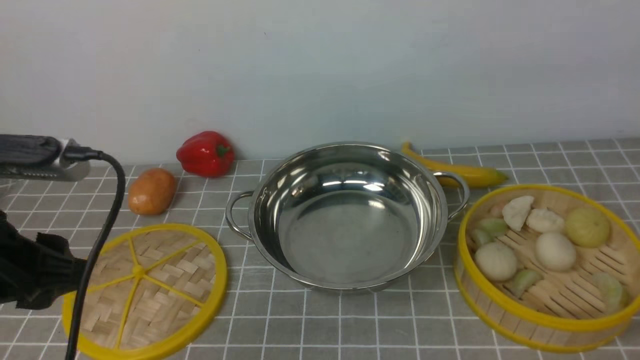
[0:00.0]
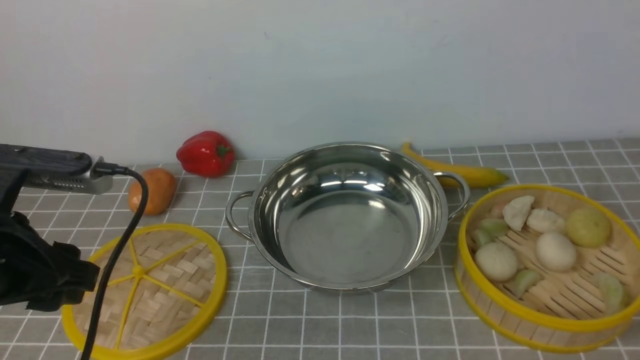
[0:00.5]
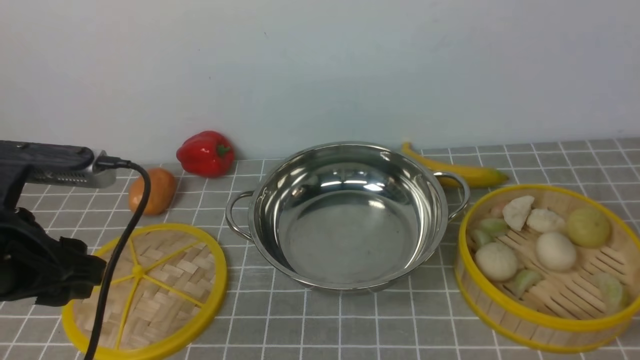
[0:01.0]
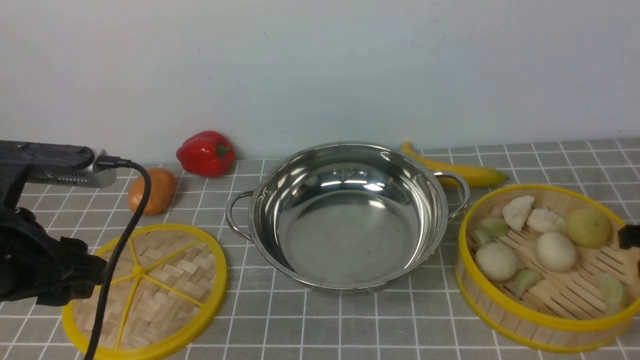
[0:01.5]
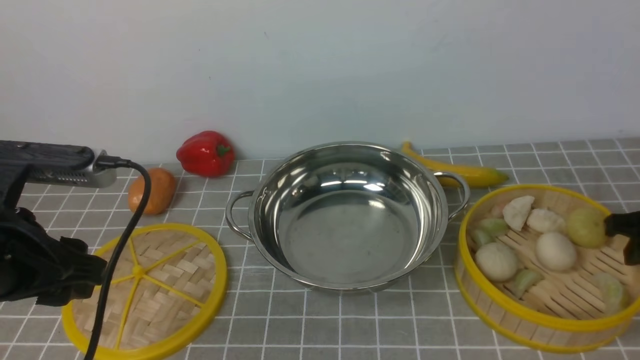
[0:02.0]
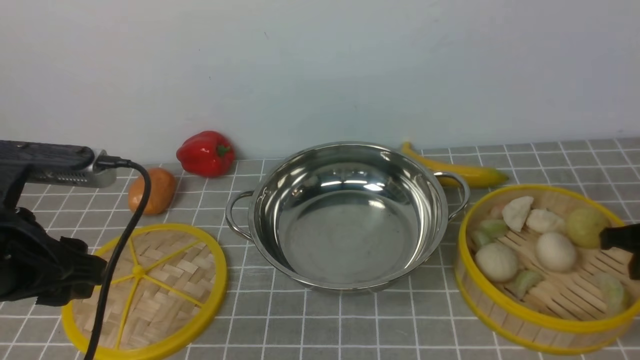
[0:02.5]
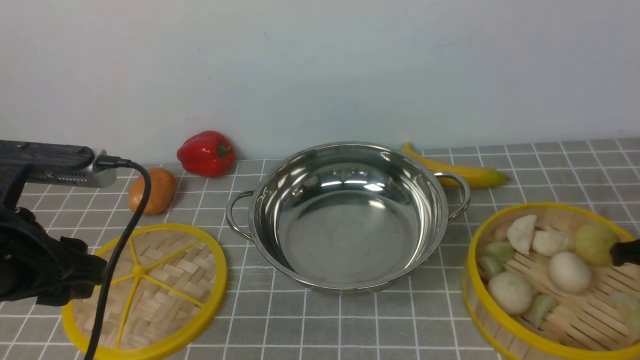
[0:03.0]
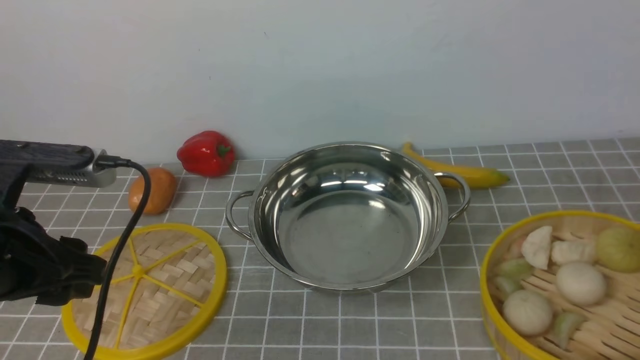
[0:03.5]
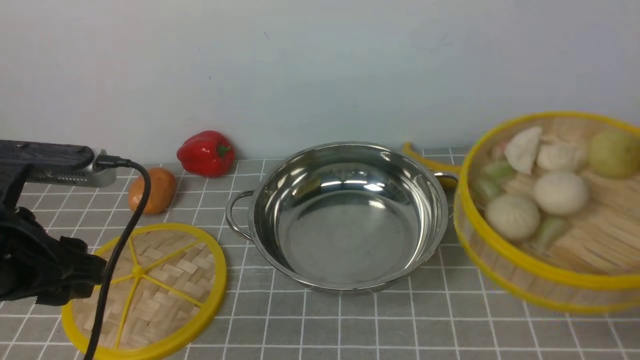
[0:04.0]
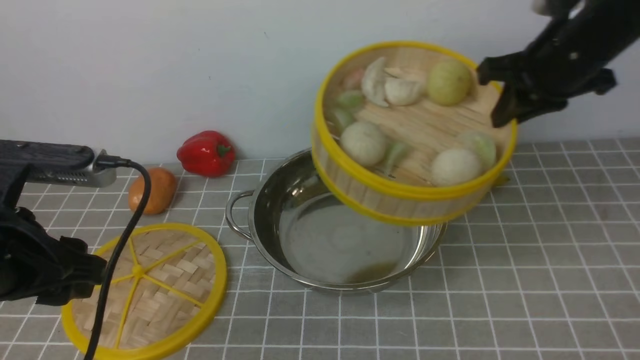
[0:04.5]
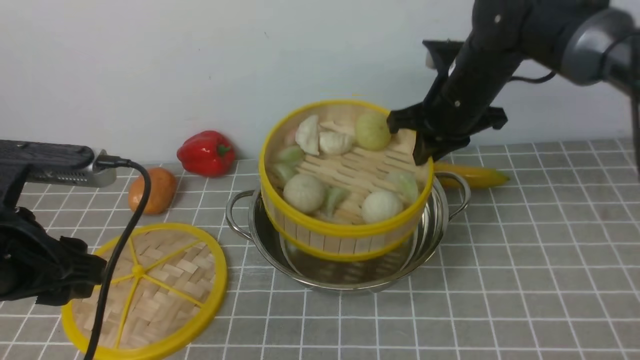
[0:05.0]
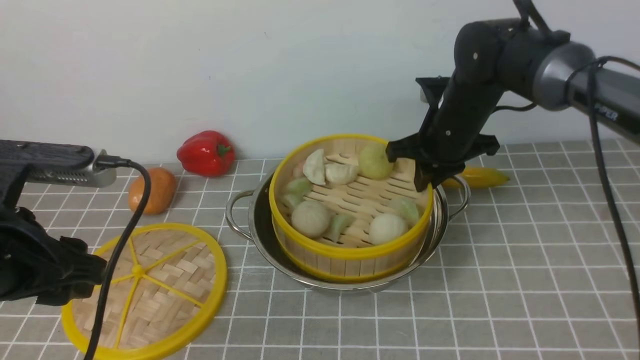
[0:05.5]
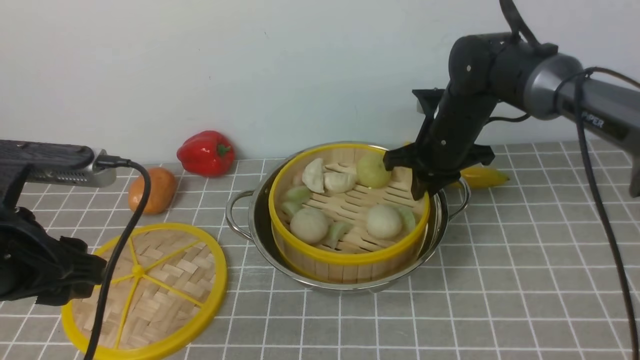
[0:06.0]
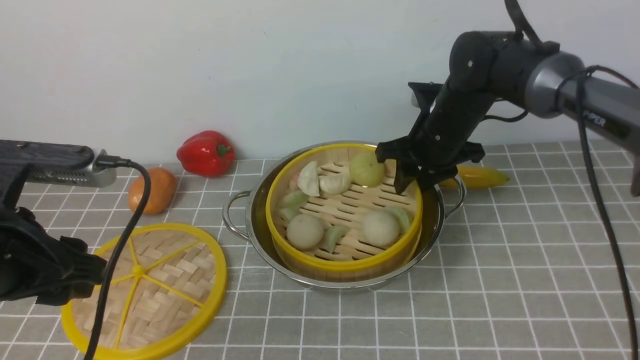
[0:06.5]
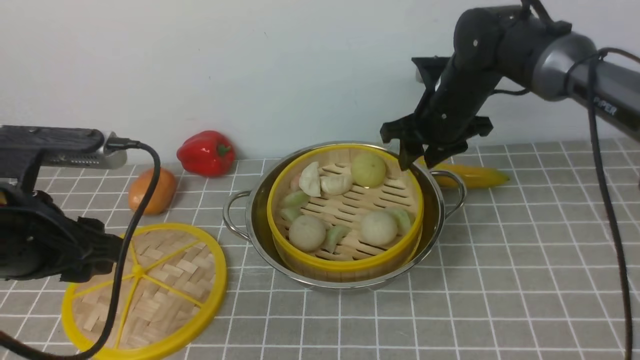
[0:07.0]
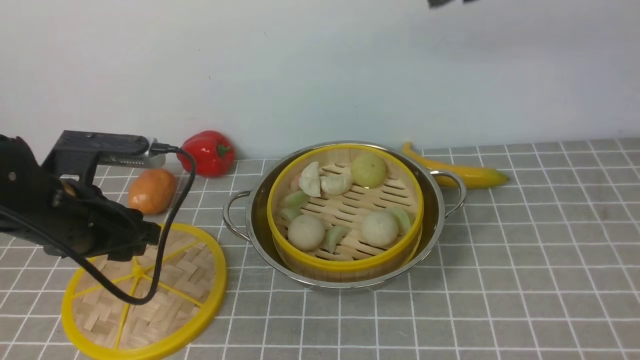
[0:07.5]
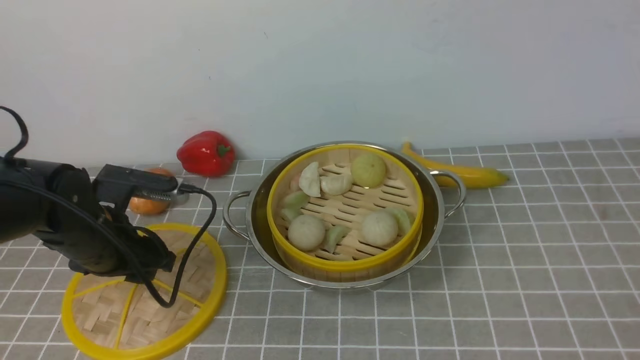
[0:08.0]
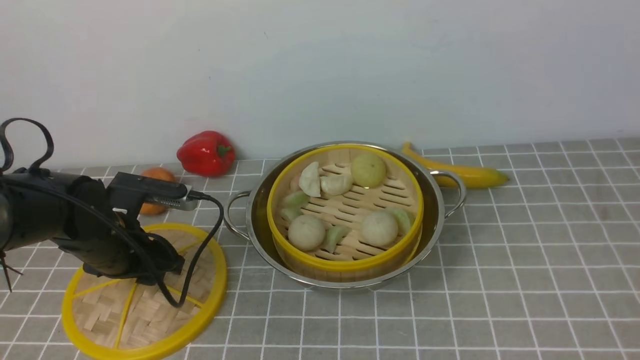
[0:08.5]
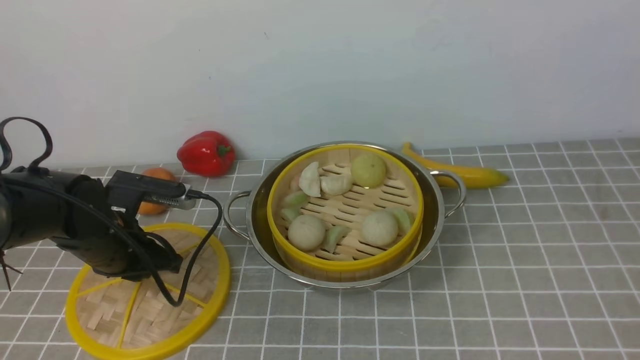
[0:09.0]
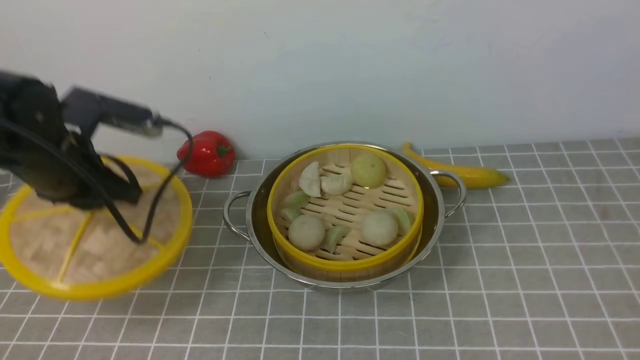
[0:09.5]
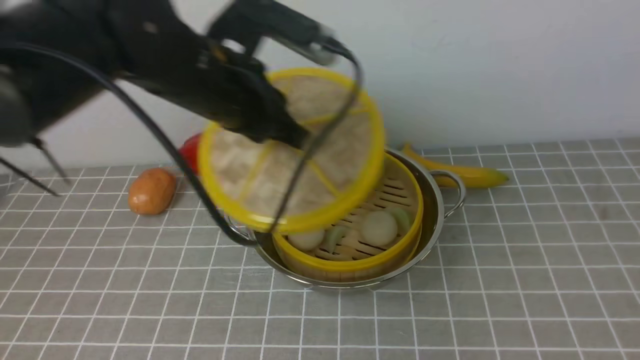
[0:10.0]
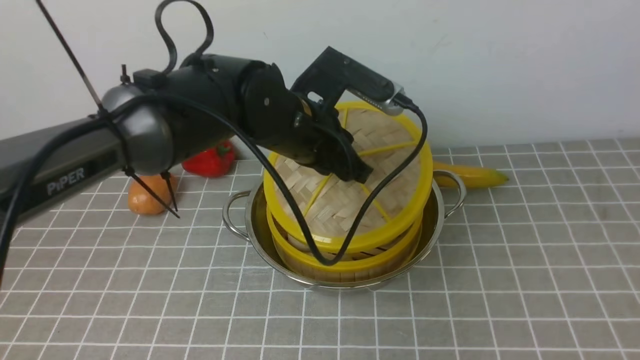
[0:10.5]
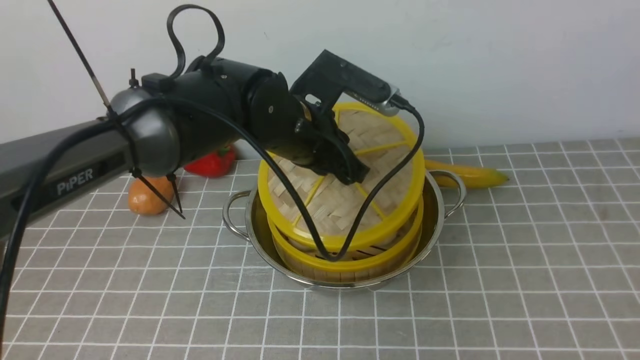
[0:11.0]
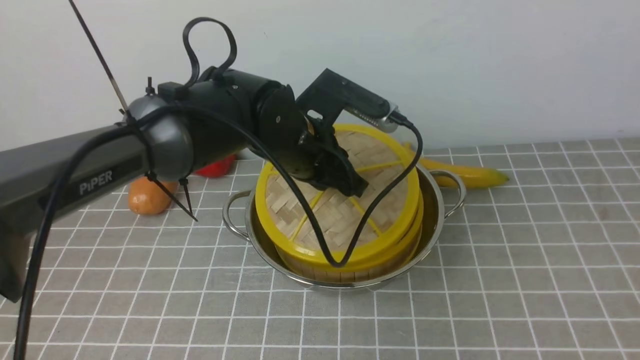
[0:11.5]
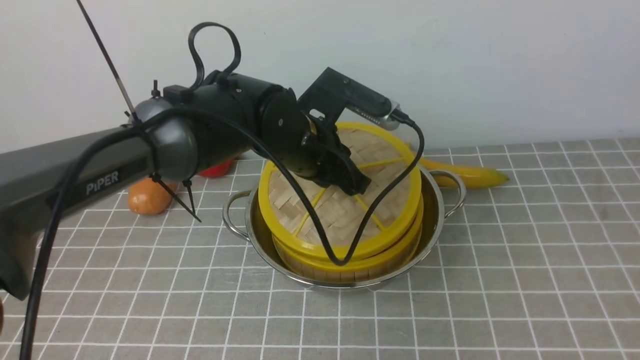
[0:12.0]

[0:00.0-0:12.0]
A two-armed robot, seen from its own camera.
Task of the whole recording: place the steamer in the pot on the grey tablecloth, and put the lid on the steamer.
Step, 0:00.0 to 0:03.5: use the right arm to lift the steamer closest to it.
Step, 0:04.0 to 0:06.5: use the right arm to put the steamer into the iron steamer pot in the middle.
Step, 0:07.0 to 0:09.0: use the left arm to lift the lid of the steamer.
0:00.0 to 0:02.0: The right gripper shifts approximately 25 cm downward and forward.
0:02.0 to 0:04.0: The right gripper moves upward, some 15 cm, and closes up.
0:04.0 to 0:06.0: The right gripper heads to the left, forward and downward, covering some 30 cm.
0:06.0 to 0:08.0: The right gripper heads upward and backward, covering about 50 cm, and opens up; the left gripper goes roughly 15 cm downward and forward.
0:08.0 to 0:10.0: The left gripper travels to the right and upward by roughly 20 cm, and closes its fingers. Meanwhile the right gripper heads backward and to the right, covering some 15 cm.
0:10.0 to 0:12.0: The left gripper travels downward and to the right by roughly 10 cm.

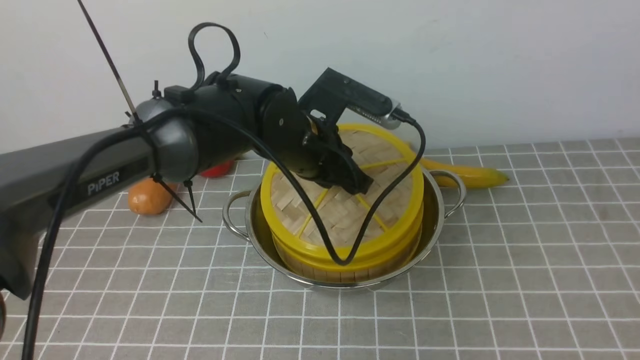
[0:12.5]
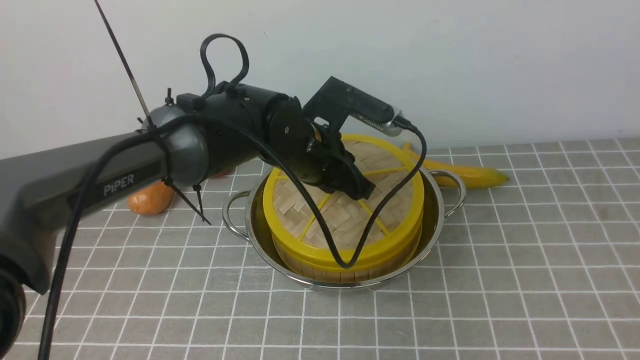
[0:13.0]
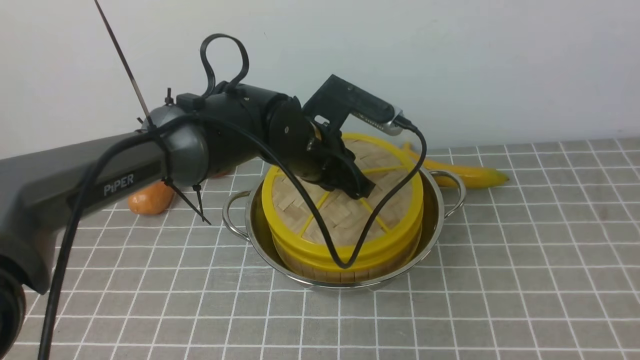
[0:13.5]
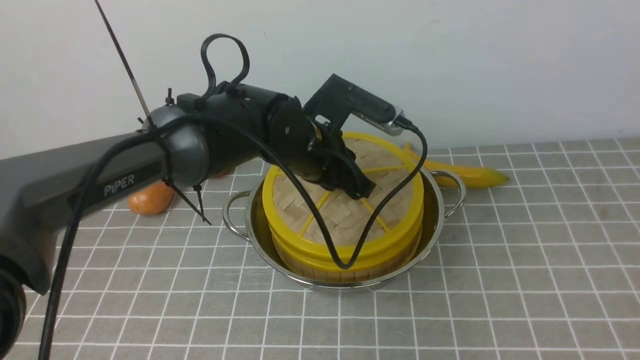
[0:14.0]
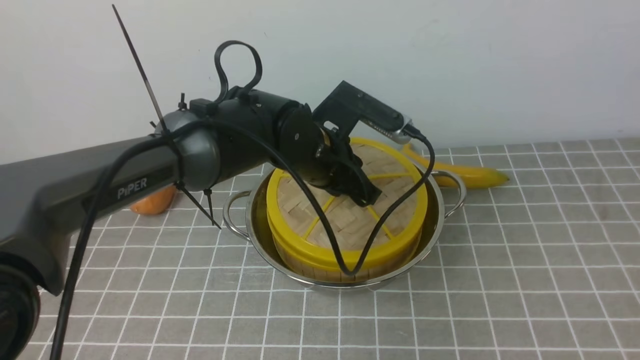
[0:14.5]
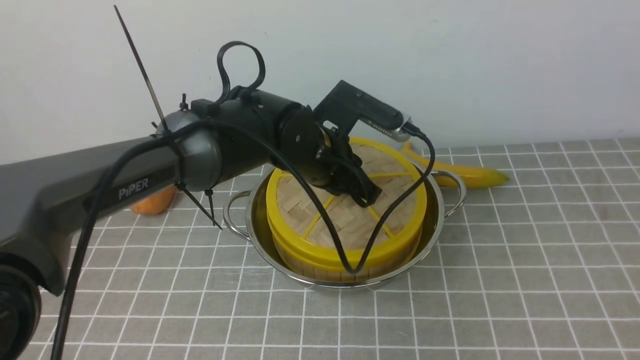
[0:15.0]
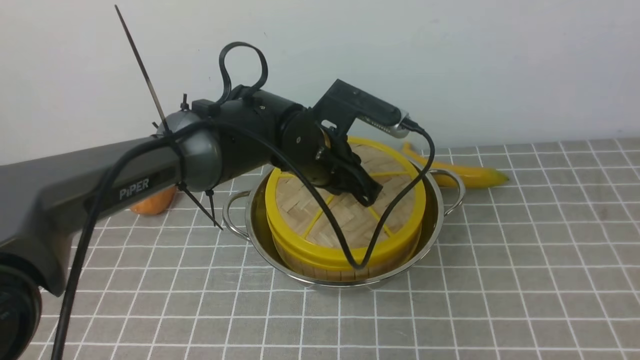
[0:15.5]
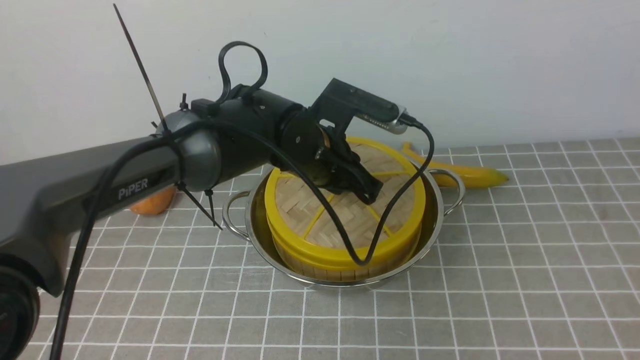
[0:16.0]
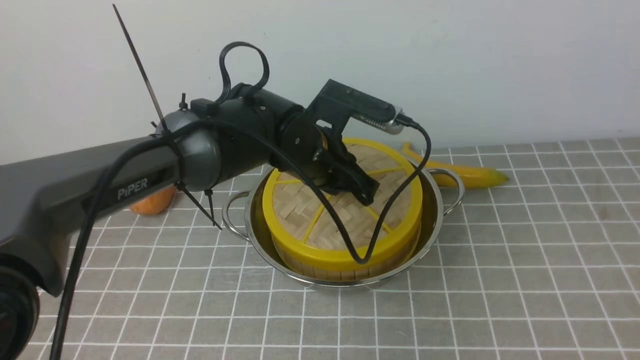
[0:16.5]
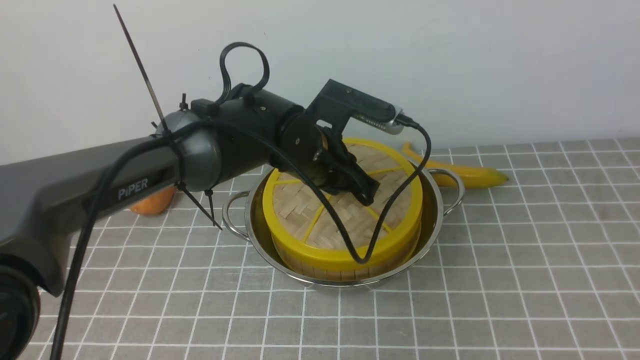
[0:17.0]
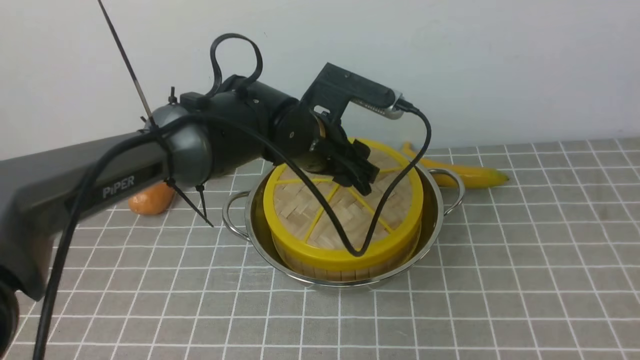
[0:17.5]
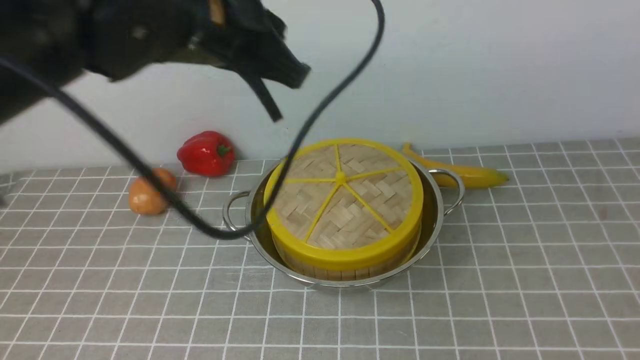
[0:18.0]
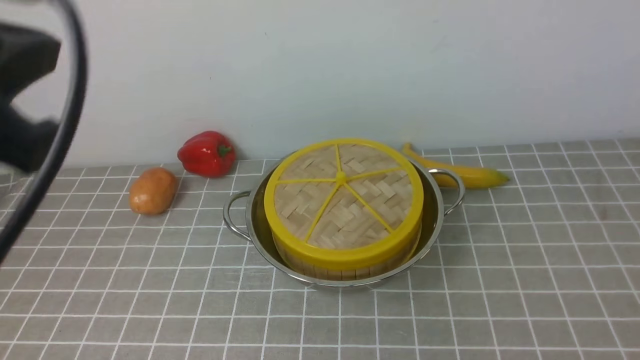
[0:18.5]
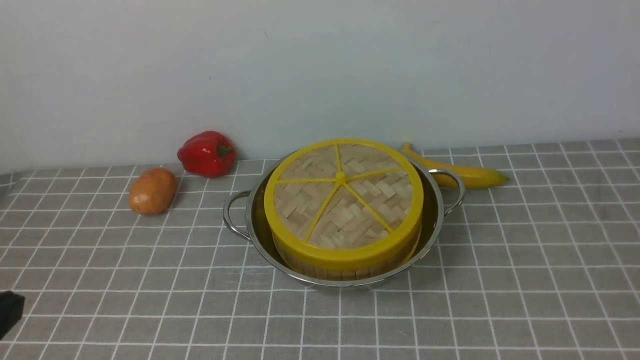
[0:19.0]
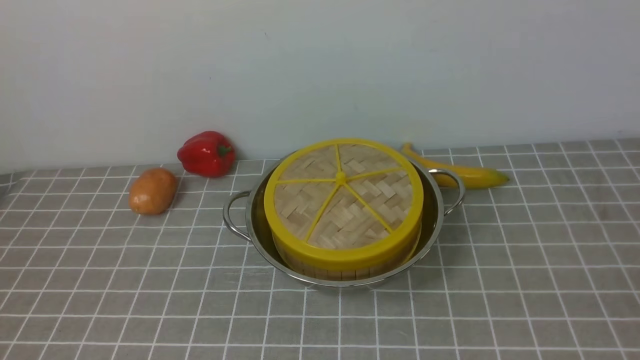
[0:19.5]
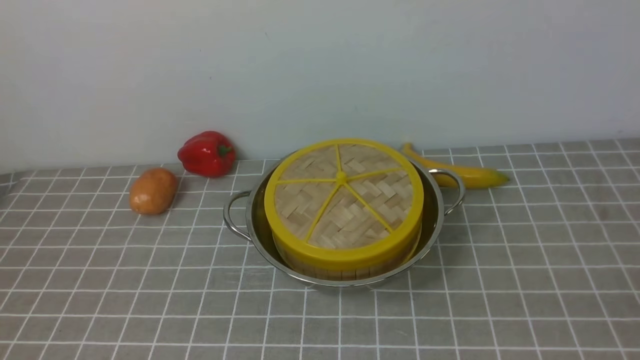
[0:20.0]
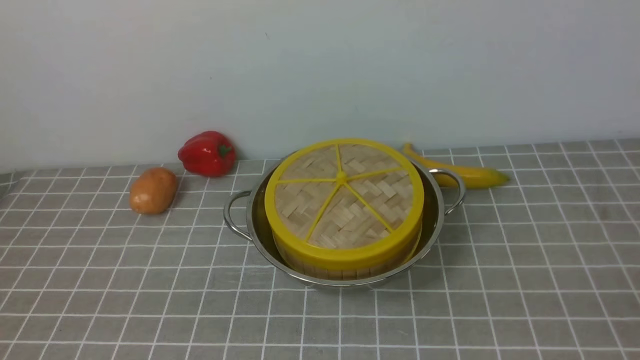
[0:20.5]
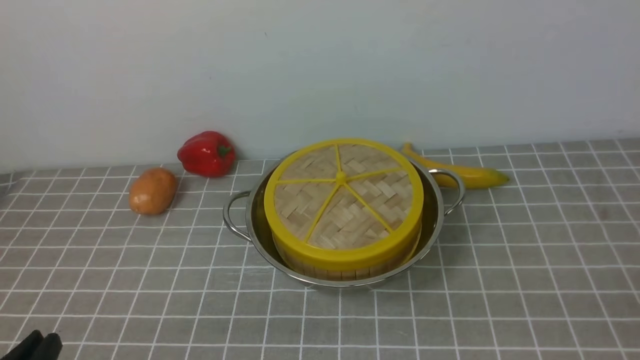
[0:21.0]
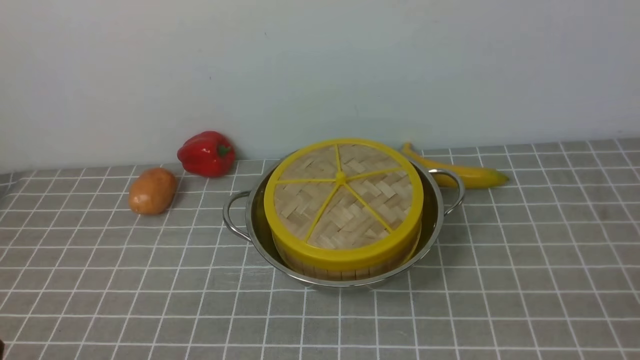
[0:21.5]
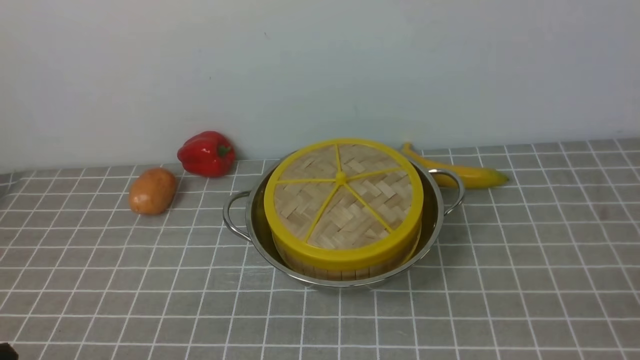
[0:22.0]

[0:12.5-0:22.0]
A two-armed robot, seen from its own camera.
Task of the whole recording: place the steamer in the pot on the grey tablecloth, and put the lid on the steamer.
Step, 0:12.5 to 0:17.5: use the left arm to place the steamer lid on the steamer.
0:12.5 to 0:16.5: The grippers move only a little.
0:16.5 to 0:18.0: The left gripper goes about 20 cm upward and backward, and opens, then closes once more.
0:18.0 to 0:20.0: The right gripper goes some 25 cm downward, and closes up. Meanwhile the left gripper is displaced backward and to the left by about 30 cm.
